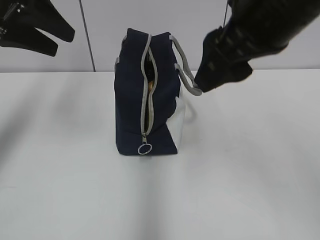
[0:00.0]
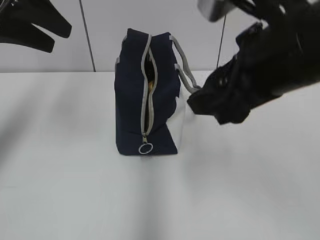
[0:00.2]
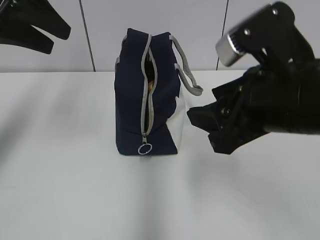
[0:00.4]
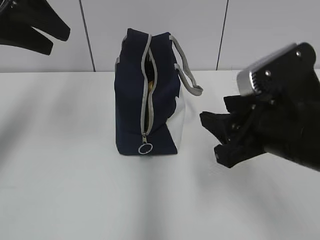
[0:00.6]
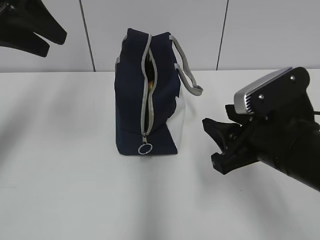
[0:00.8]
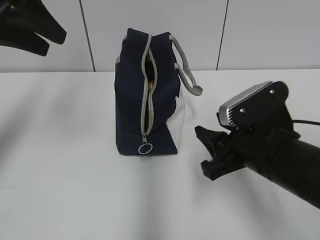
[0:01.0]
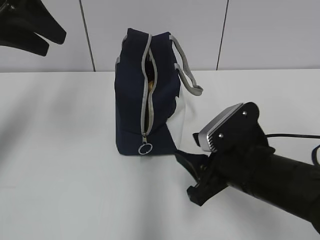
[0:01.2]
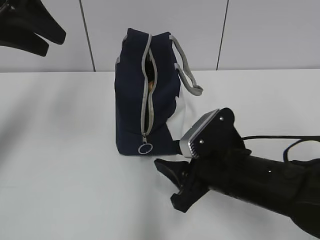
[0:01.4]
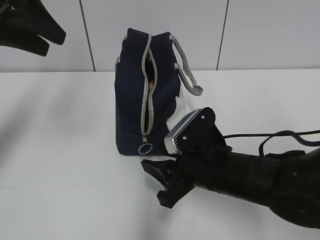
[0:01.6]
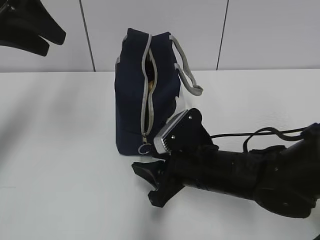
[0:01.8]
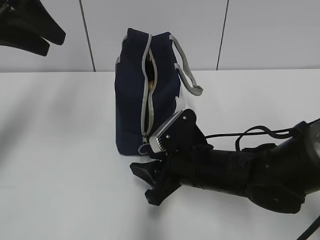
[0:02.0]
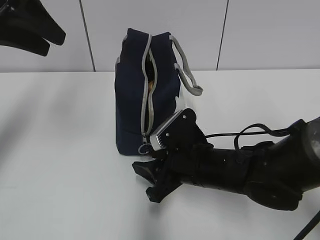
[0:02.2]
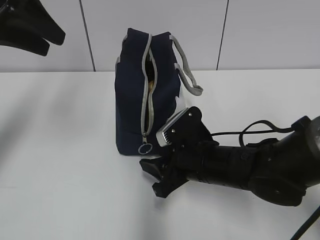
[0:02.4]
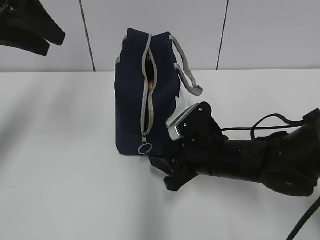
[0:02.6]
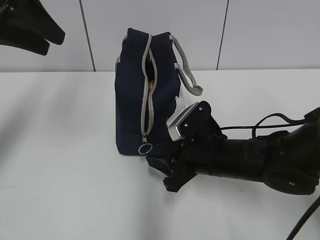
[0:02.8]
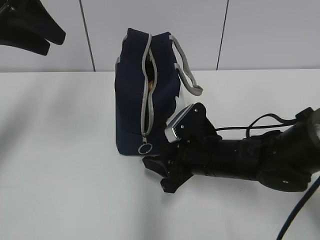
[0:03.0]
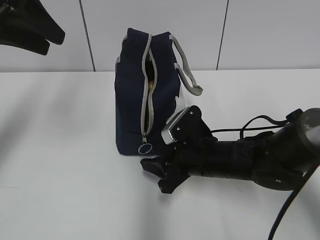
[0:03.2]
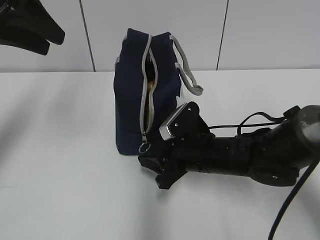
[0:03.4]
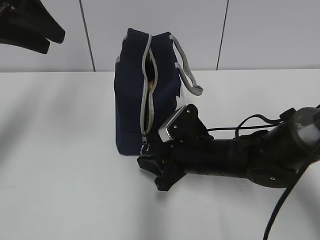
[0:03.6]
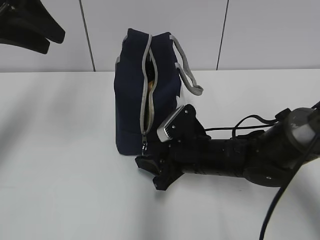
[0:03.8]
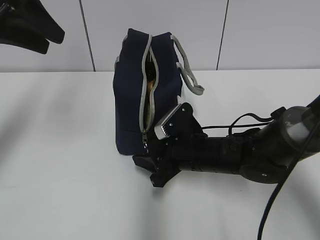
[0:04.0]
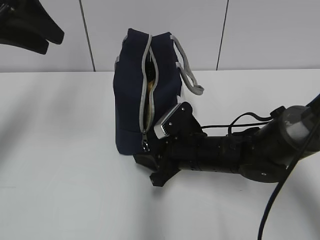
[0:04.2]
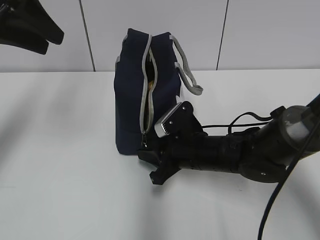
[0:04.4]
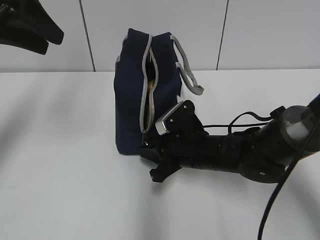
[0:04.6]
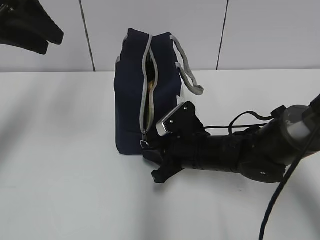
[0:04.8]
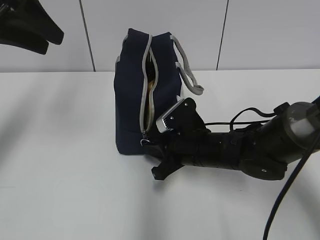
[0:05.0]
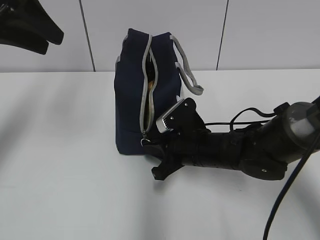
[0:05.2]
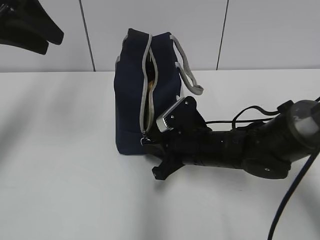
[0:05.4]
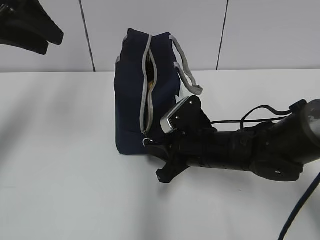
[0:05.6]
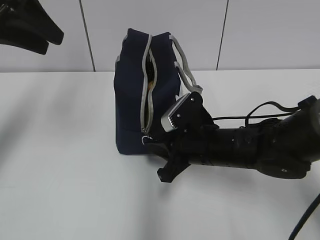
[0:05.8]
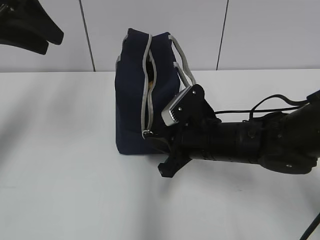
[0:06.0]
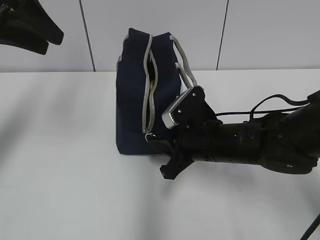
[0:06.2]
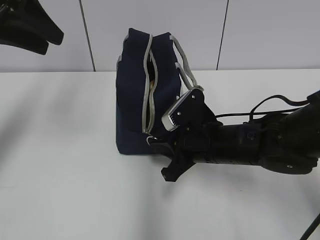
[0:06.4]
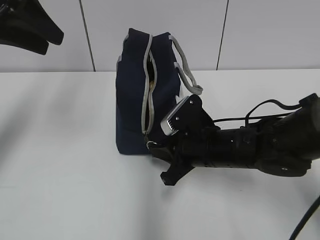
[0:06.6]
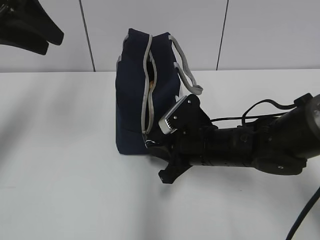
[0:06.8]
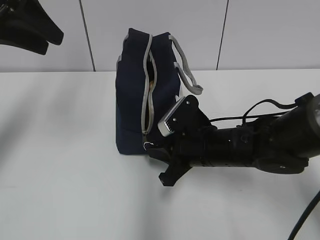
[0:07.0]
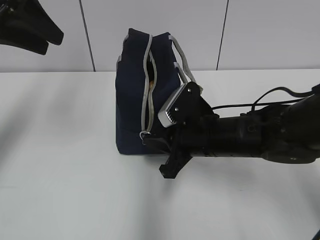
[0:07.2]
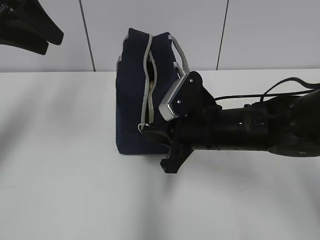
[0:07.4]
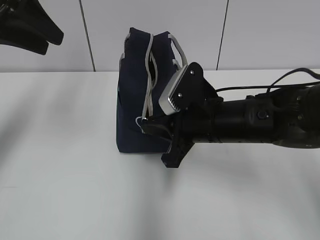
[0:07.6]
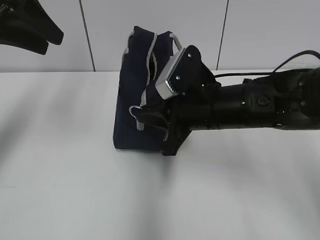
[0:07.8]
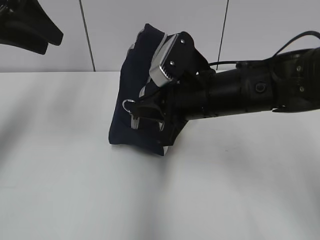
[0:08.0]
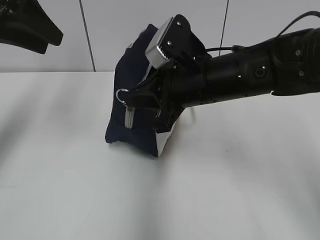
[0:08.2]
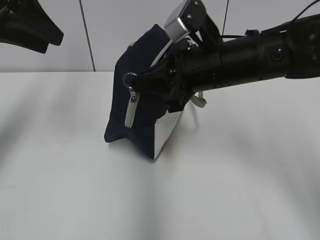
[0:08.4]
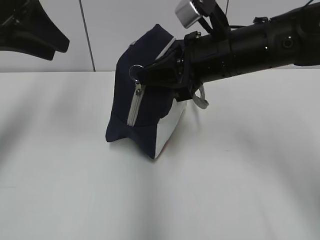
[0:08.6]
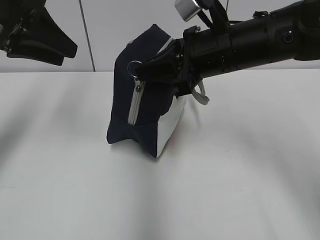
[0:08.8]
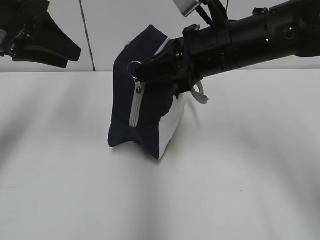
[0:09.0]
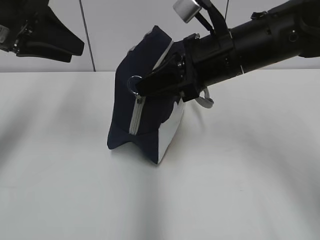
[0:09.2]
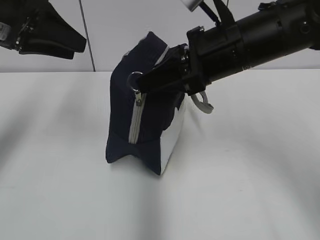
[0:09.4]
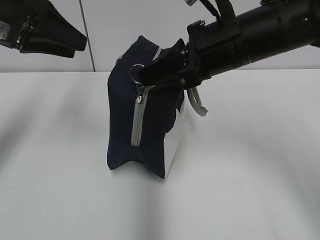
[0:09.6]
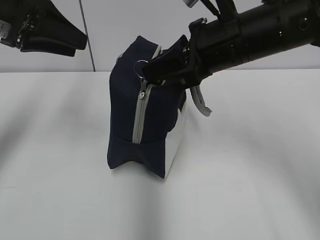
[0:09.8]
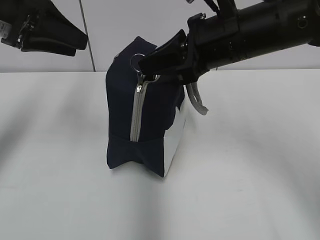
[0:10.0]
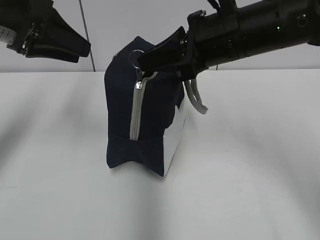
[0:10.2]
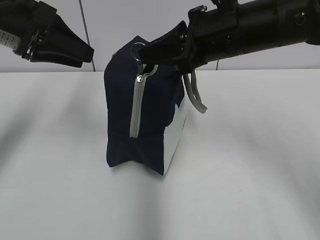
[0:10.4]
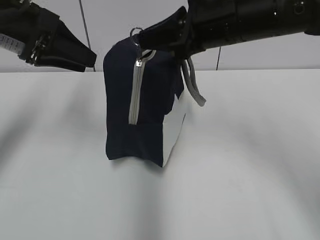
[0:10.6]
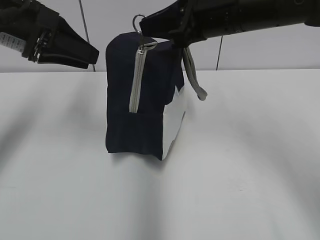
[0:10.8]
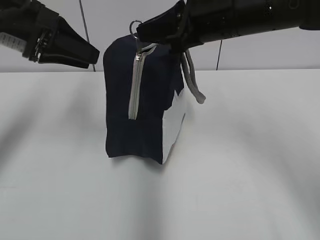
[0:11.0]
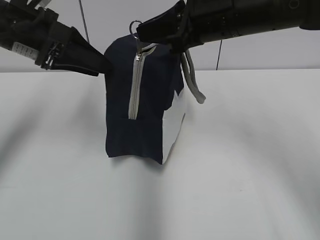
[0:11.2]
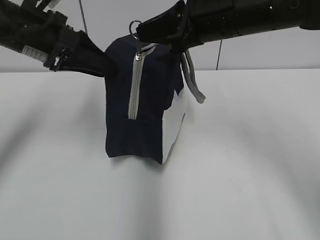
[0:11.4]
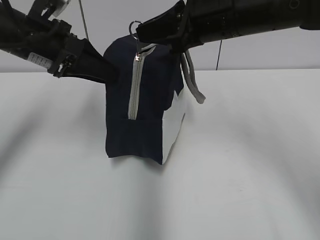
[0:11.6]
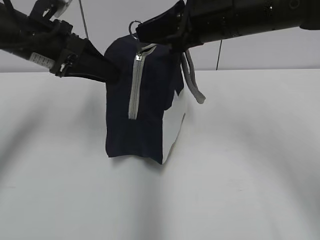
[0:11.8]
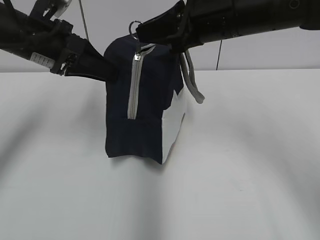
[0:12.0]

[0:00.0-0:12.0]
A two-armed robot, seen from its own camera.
0:00.0 to 0:01.6: The right gripper shifts roughly 25 cm downward.
0:01.6 to 0:03.0: The right gripper moves about 5 cm.
0:03.0 to 0:06.0: The grippers stay close to where they were, moving slightly.
0:06.0 to 0:07.6: The grippers stay close to where they were, moving slightly.
0:07.6 to 0:09.0: The right gripper heads upward, covering about 10 cm.
0:09.0 to 0:10.4: The grippers make only small movements.
0:10.4 to 0:12.0: The left gripper changes place by some 5 cm.

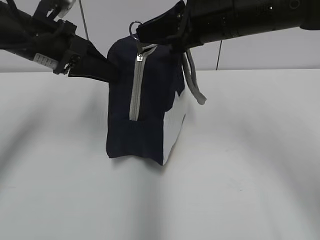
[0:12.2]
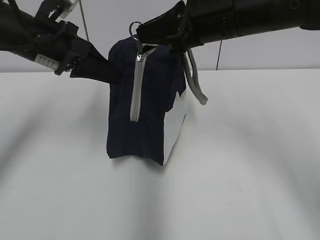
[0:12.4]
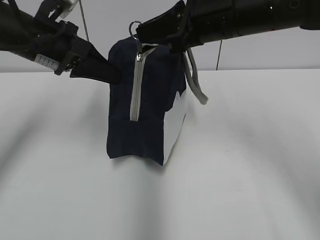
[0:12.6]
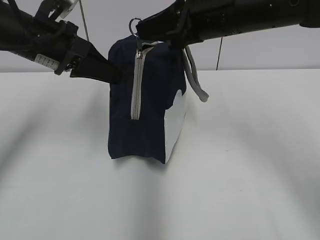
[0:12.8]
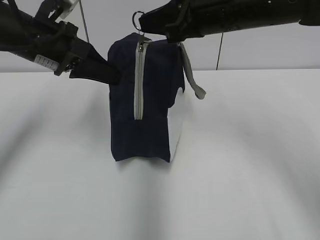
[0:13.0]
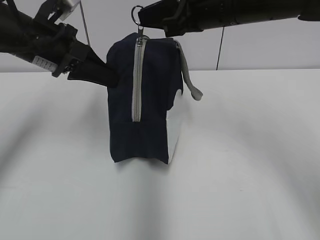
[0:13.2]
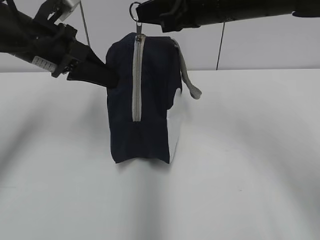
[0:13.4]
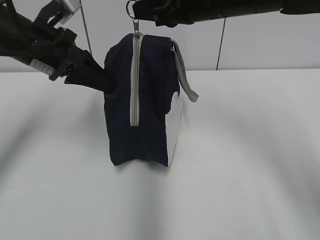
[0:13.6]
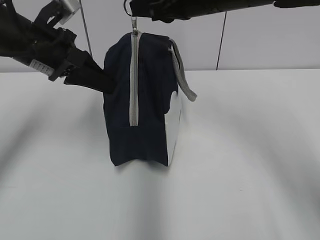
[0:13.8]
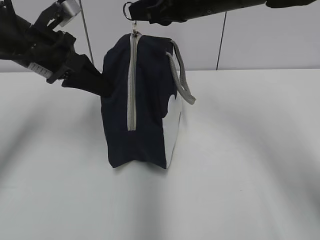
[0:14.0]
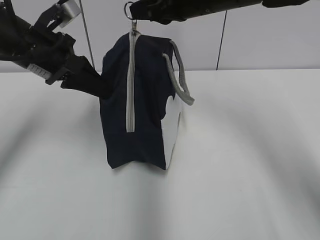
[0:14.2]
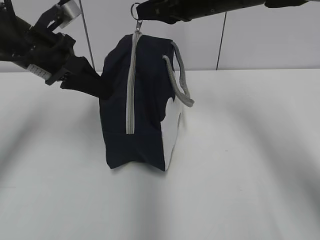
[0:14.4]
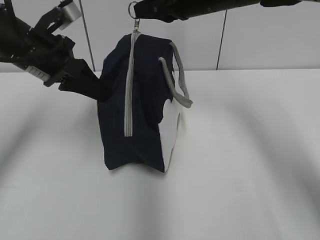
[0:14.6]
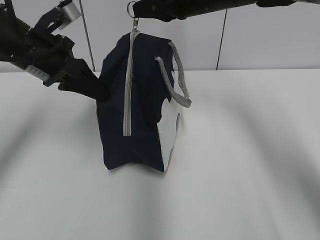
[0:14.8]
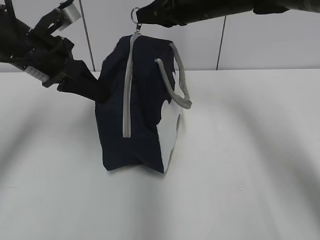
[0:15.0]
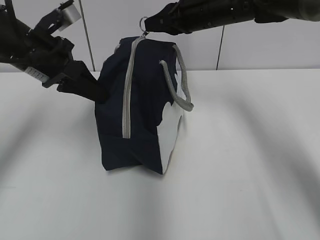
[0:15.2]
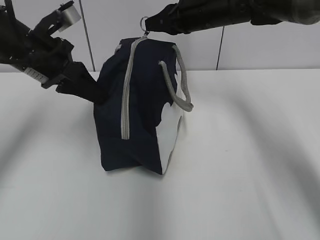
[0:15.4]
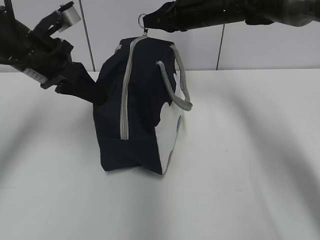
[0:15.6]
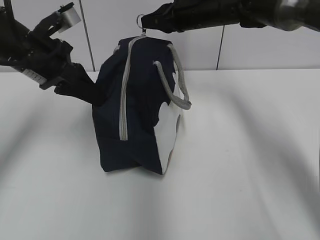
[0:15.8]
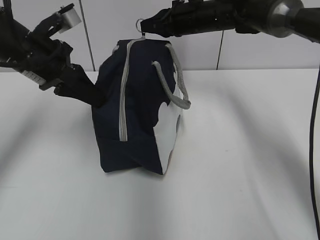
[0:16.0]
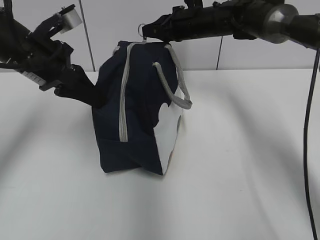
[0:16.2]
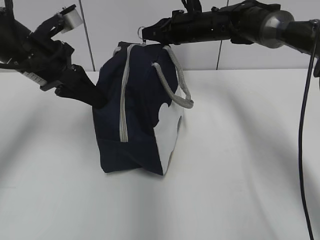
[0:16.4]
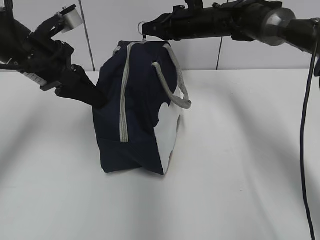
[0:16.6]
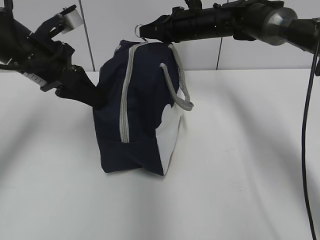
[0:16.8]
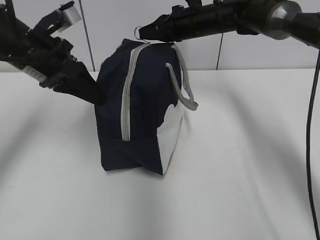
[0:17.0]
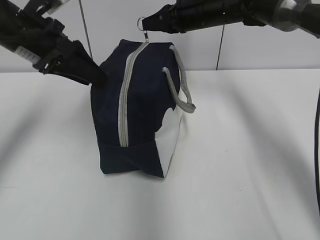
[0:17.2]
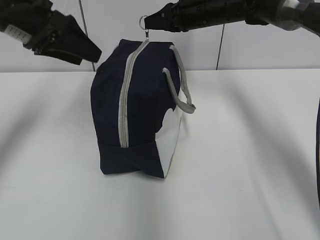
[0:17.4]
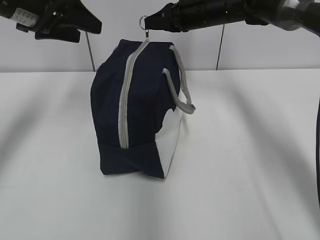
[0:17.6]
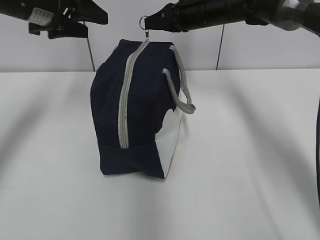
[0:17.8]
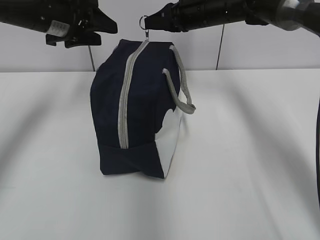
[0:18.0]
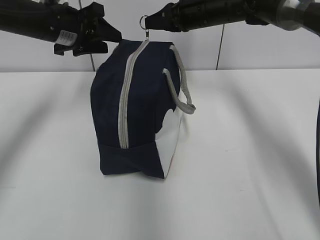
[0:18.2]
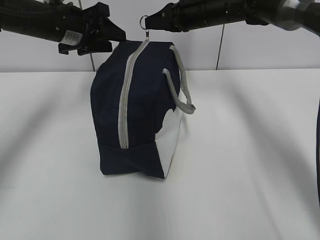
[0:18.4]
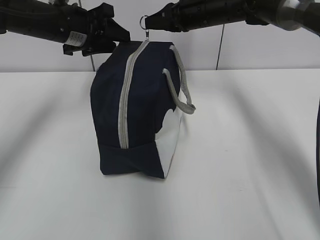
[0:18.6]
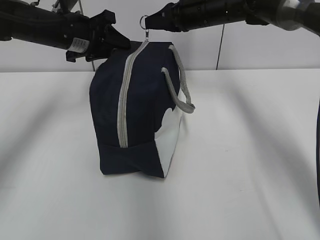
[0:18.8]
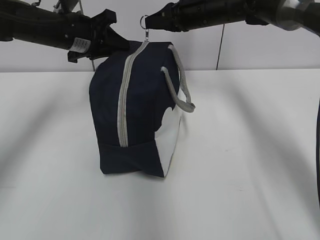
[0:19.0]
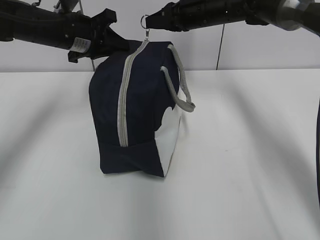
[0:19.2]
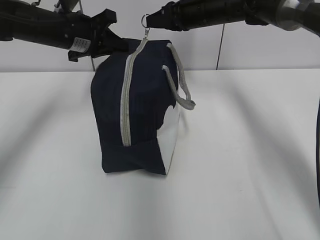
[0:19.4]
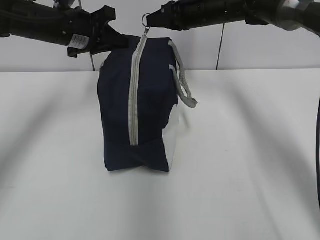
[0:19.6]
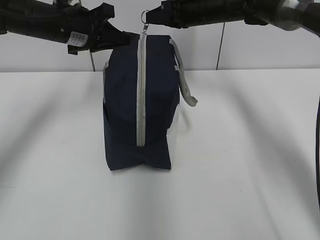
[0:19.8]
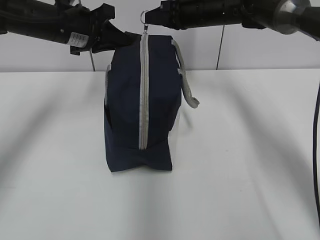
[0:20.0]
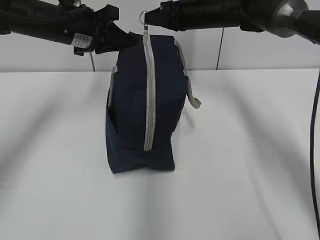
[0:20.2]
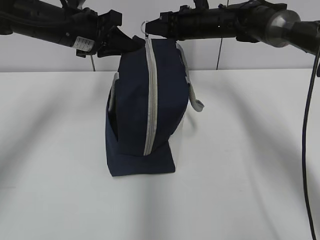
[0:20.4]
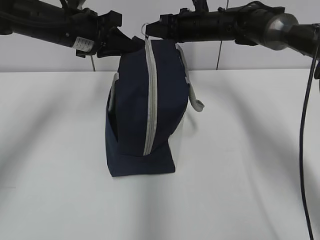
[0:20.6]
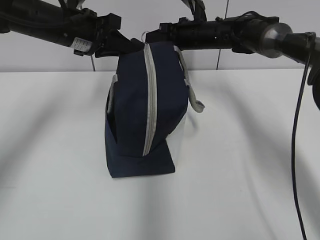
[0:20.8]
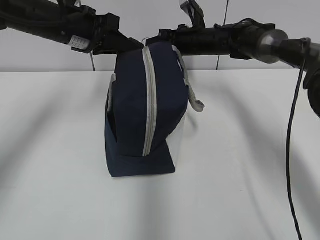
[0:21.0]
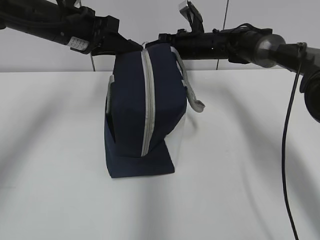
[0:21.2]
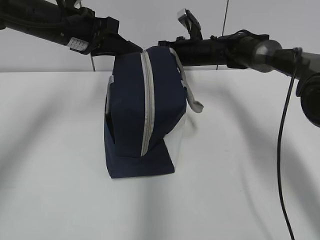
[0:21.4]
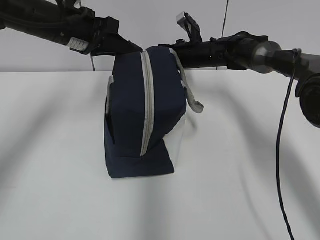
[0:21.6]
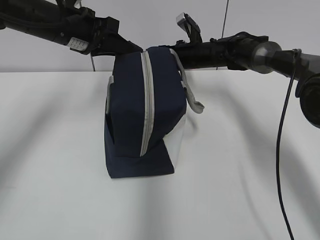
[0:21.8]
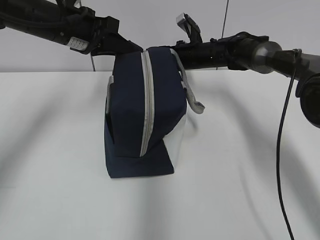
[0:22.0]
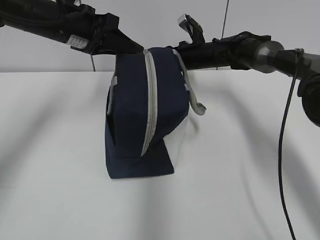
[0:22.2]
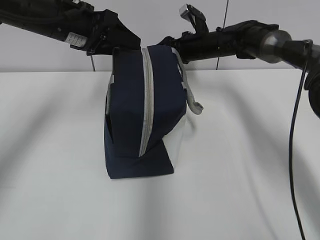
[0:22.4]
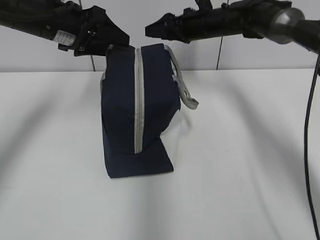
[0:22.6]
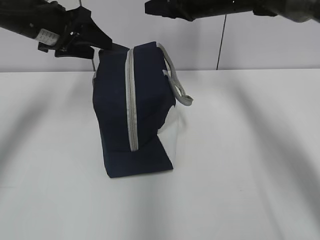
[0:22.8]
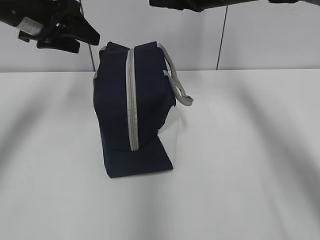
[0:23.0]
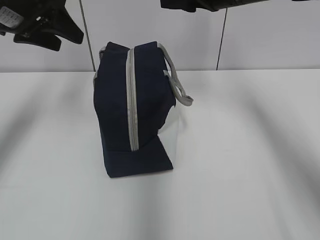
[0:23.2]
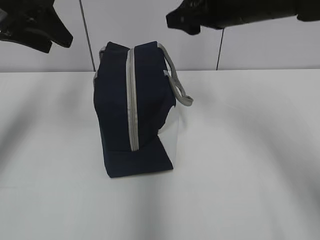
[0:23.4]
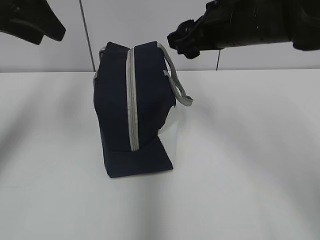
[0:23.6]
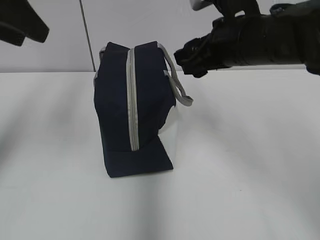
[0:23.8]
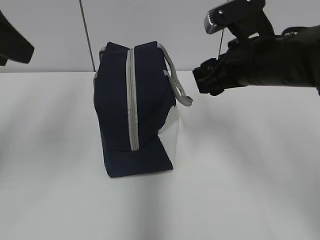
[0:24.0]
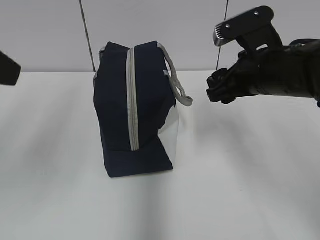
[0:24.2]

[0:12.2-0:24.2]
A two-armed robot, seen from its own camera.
Step, 0:17.2 to 0:22.2: Pull the zipper with your right hand.
0:12.2 to 0:13.8: The grippers stay close to where they were, moving slightly.
0:13.8 to 0:15.2: The right gripper goes approximately 10 cm forward and downward.
0:15.2 to 0:16.6: The right gripper goes some 5 cm forward.
0:16.6 to 0:18.2: The left gripper moves forward, roughly 10 cm, and opens its fingers.
0:18.2 to 0:19.8: The left gripper closes.
0:19.8 to 0:21.2: The right gripper is displaced downward by about 10 cm.
0:21.2 to 0:22.6: The right gripper opens up. Meanwhile the left gripper opens.
0:22.6 to 0:24.2: The right gripper shifts about 25 cm backward. The left gripper moves backward and upward, some 25 cm.
